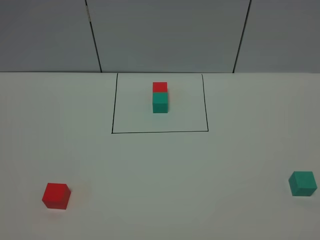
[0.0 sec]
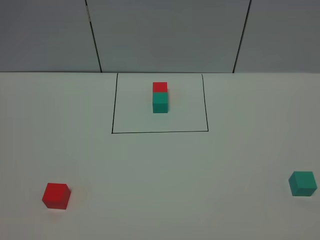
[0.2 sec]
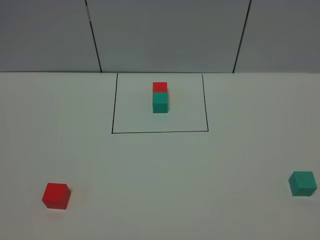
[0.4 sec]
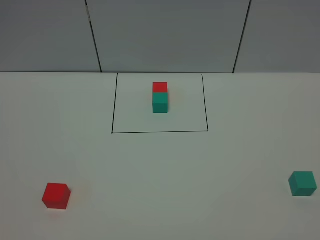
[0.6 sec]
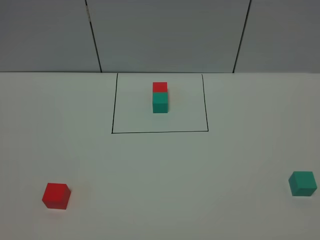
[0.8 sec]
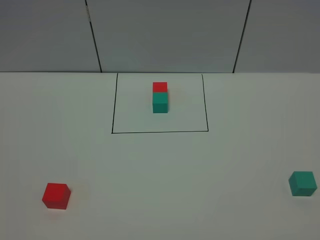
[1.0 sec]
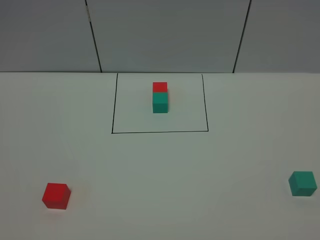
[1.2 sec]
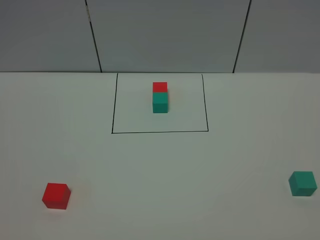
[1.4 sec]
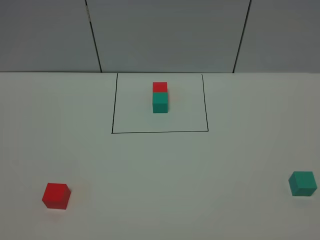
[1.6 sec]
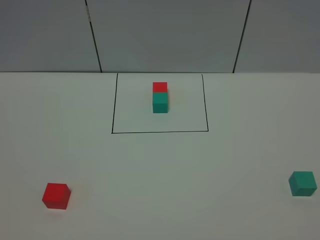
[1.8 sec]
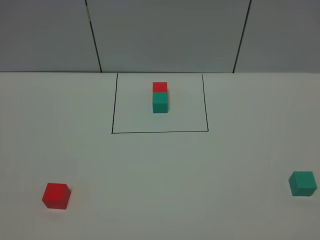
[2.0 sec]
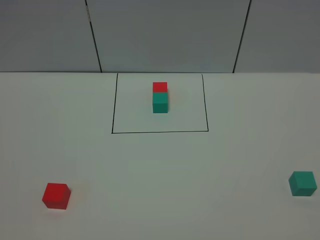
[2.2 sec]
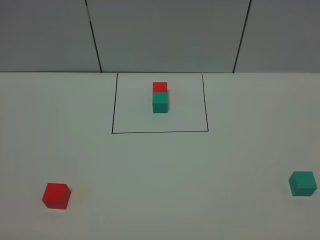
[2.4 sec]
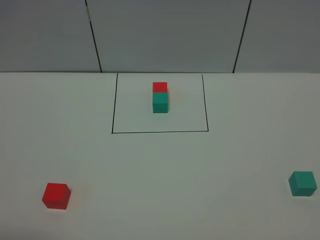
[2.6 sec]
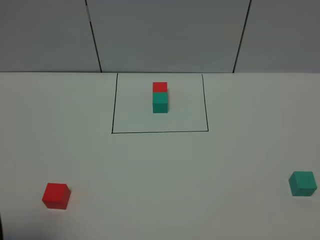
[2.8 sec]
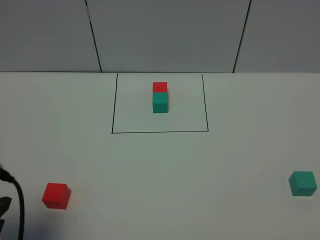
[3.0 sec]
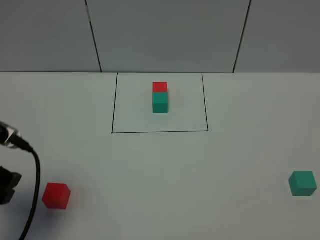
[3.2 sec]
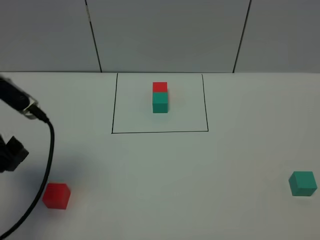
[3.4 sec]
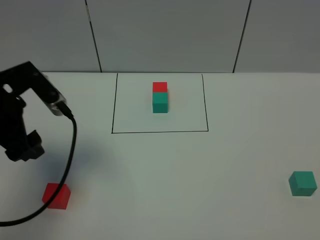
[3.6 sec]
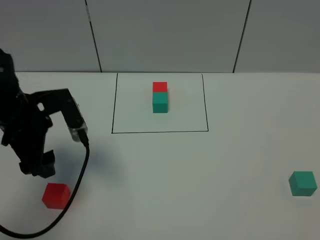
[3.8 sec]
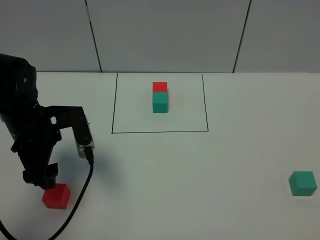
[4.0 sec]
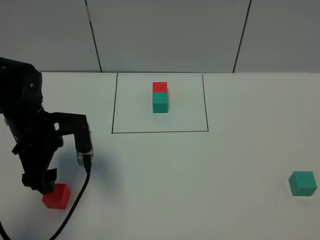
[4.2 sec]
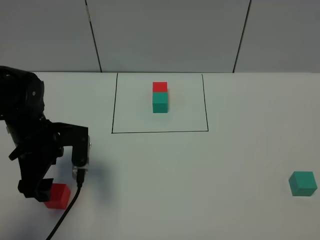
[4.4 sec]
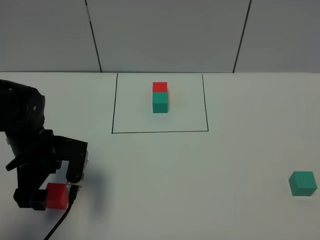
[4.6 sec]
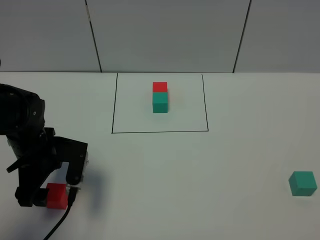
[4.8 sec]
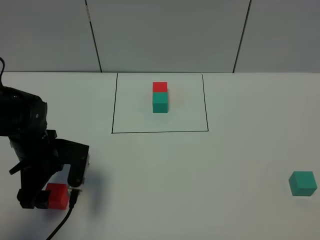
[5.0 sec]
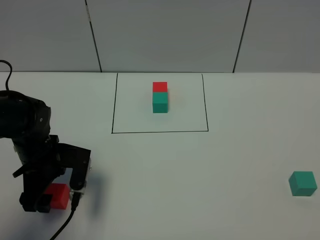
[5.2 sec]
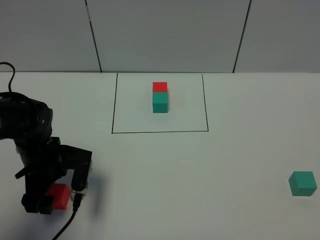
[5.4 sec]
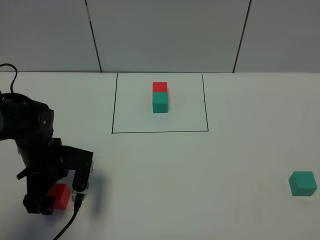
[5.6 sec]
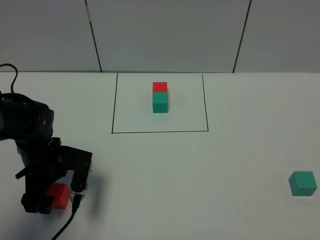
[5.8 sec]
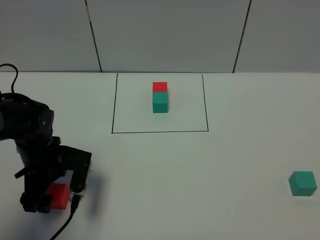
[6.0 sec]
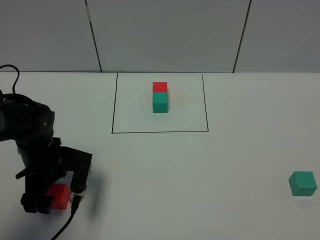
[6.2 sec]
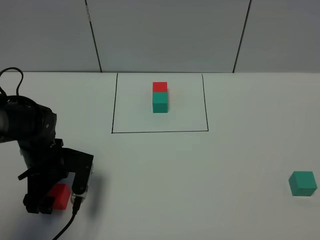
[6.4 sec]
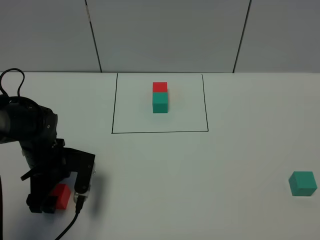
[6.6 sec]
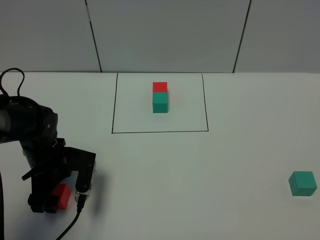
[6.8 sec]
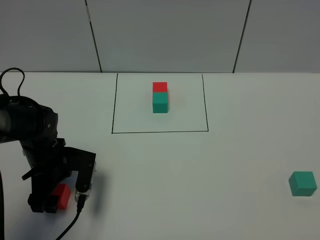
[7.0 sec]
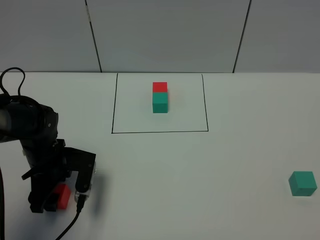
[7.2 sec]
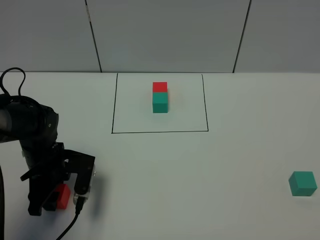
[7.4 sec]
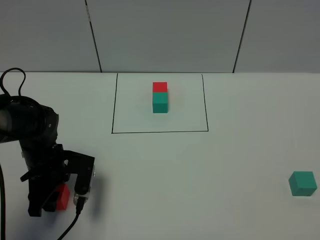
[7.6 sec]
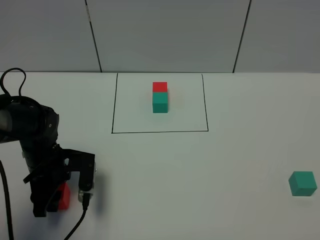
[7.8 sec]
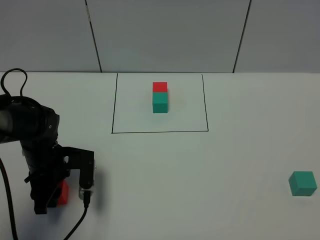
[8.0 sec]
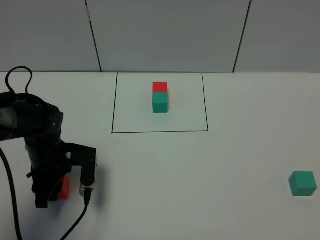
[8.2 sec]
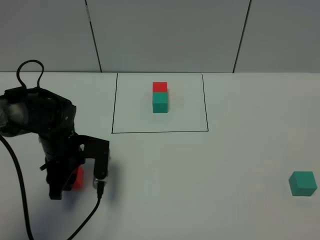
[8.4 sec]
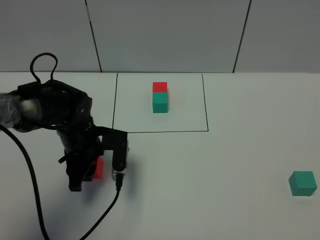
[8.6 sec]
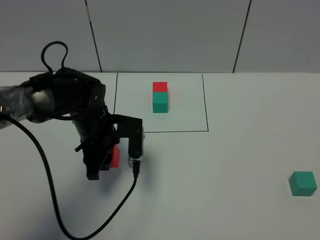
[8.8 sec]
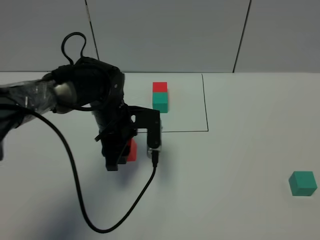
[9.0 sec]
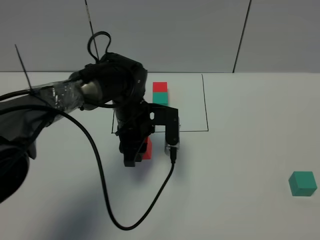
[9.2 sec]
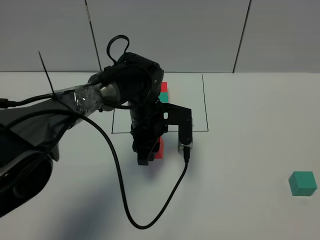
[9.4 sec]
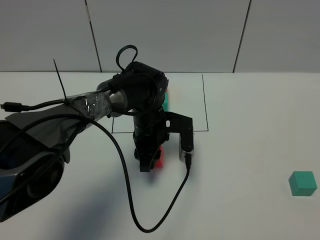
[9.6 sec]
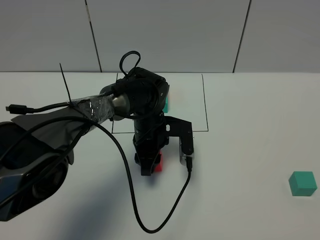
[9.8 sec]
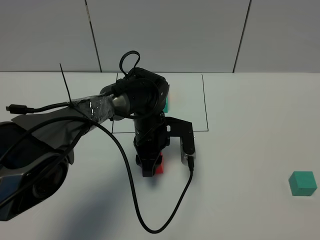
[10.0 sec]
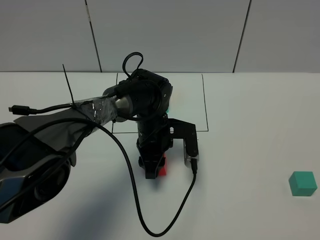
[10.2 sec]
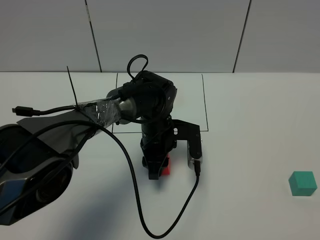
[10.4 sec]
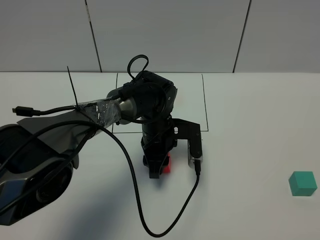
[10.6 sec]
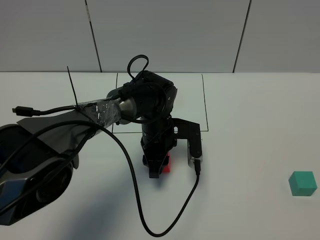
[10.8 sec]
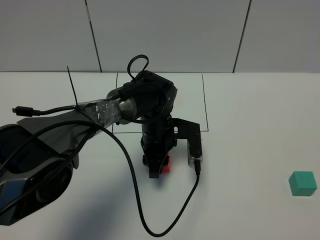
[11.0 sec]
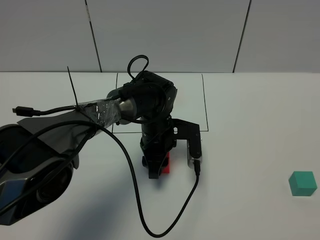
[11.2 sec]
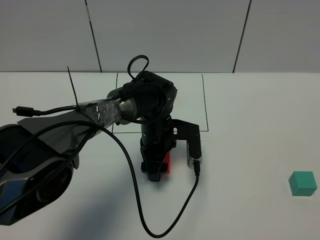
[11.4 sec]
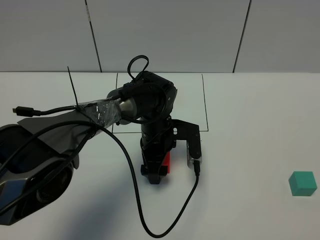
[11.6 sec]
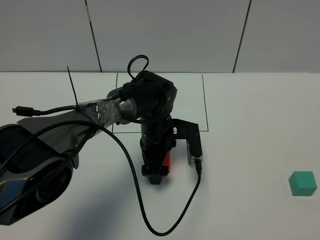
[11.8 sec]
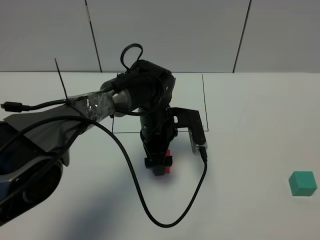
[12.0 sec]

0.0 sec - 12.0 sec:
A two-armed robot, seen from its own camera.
Task of the whole recording: According to the building block template in front, assemble the scattered blocks together.
Step, 2.8 sec - 12.0 sec: Put the red cube in the center of the table.
0.0 sec - 1.6 sec: Neither gripper changes place.
1.6 sec - 3.0 sec: The left gripper is displaced forward by approximately 15 cm.
3.0 sec - 4.4 sec: The left gripper goes about 20 cm forward and downward.
4.4 sec - 6.0 sec: The left gripper heads downward, covering some 5 cm.
6.0 sec - 7.6 sec: The left gripper closes up.
7.6 sec - 9.0 sec: The left gripper moves to the right and forward, approximately 15 cm.
9.0 sec - 10.4 sec: The left gripper heads to the right, covering some 5 cm.
10.4 sec - 12.0 sec: The left gripper opens.

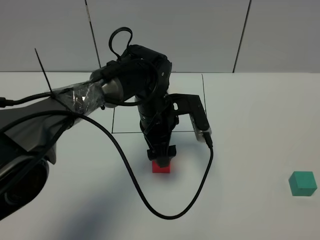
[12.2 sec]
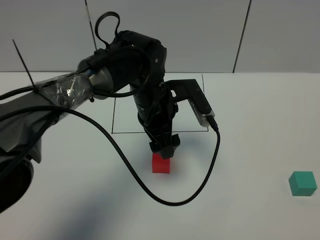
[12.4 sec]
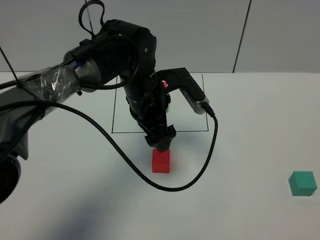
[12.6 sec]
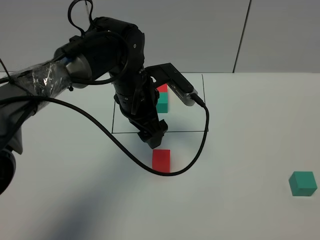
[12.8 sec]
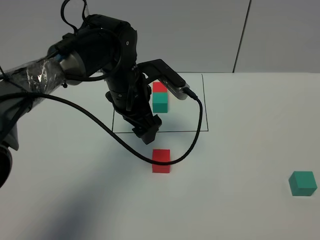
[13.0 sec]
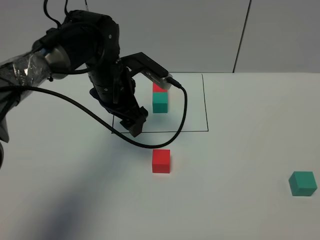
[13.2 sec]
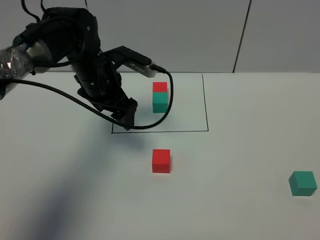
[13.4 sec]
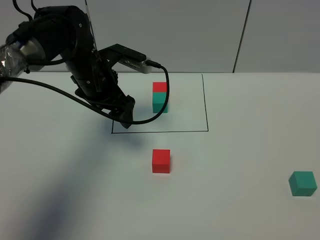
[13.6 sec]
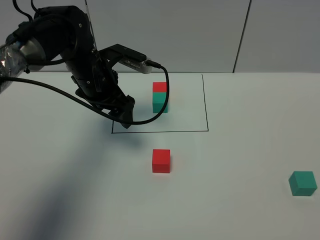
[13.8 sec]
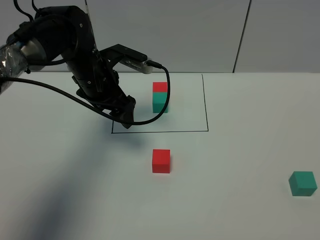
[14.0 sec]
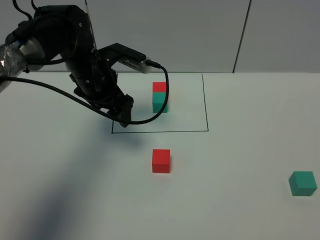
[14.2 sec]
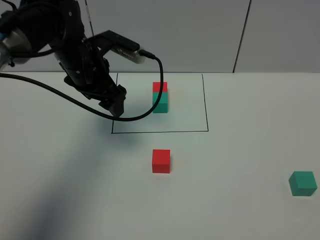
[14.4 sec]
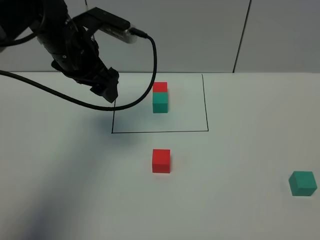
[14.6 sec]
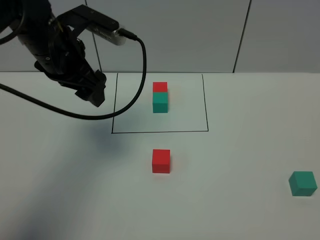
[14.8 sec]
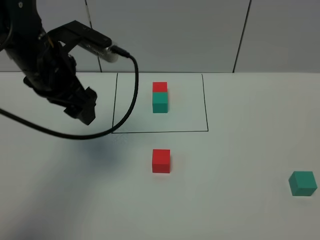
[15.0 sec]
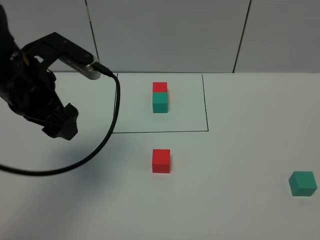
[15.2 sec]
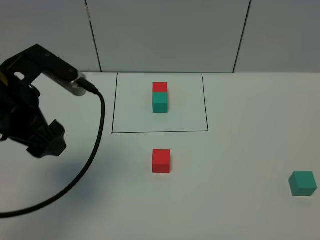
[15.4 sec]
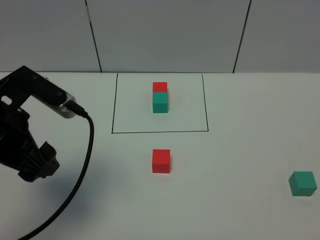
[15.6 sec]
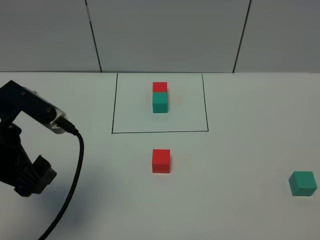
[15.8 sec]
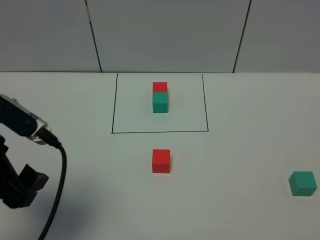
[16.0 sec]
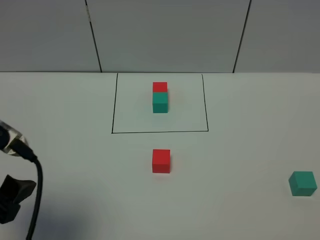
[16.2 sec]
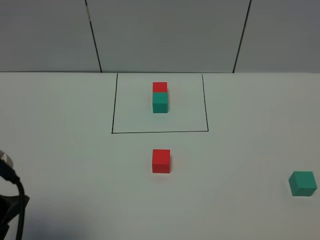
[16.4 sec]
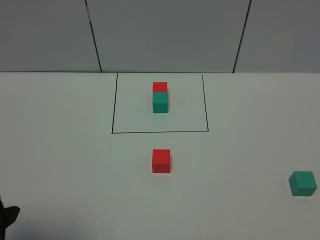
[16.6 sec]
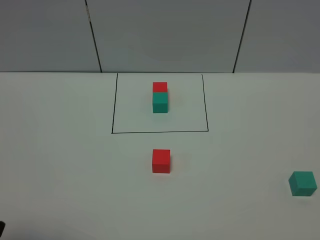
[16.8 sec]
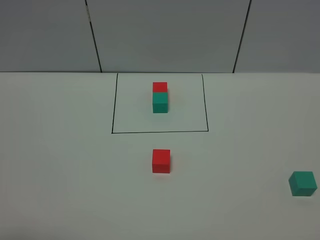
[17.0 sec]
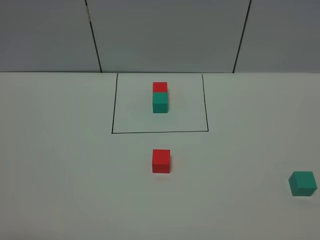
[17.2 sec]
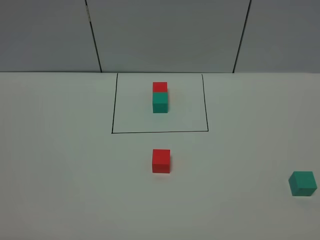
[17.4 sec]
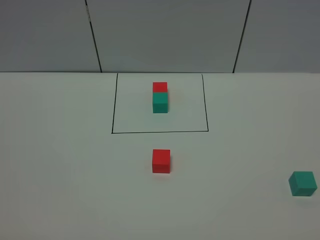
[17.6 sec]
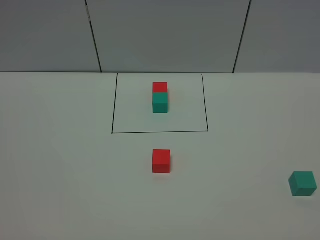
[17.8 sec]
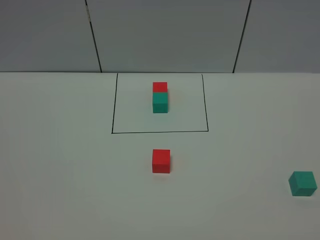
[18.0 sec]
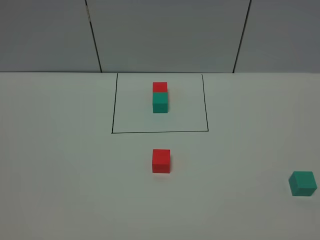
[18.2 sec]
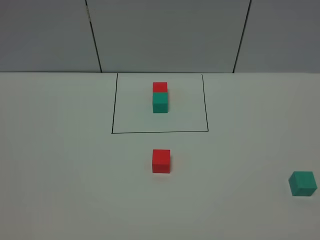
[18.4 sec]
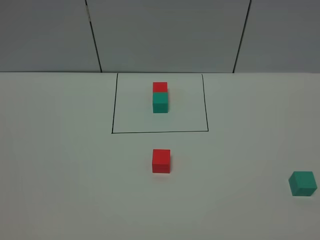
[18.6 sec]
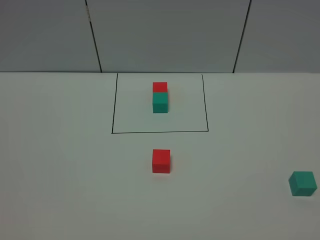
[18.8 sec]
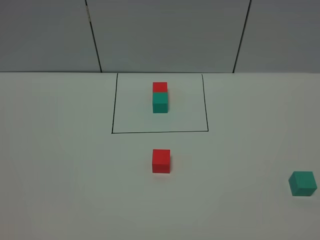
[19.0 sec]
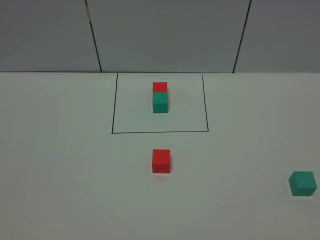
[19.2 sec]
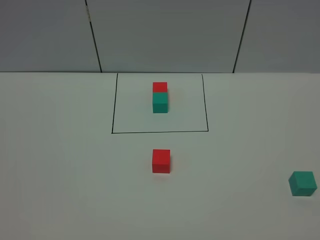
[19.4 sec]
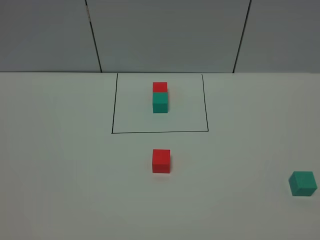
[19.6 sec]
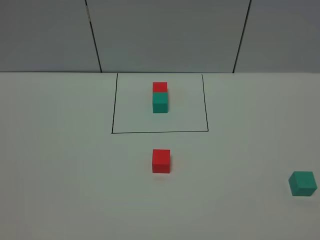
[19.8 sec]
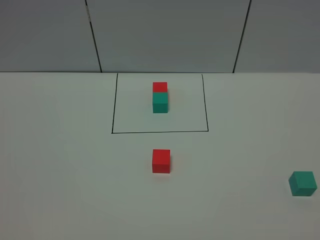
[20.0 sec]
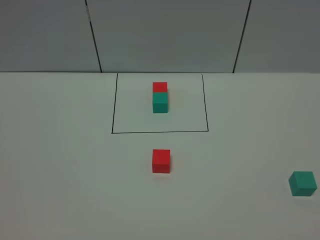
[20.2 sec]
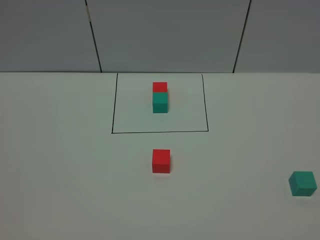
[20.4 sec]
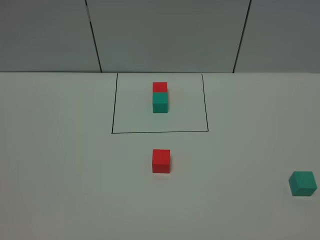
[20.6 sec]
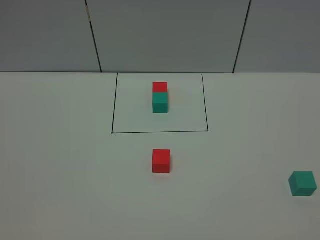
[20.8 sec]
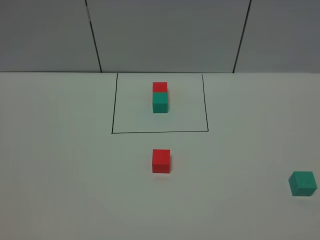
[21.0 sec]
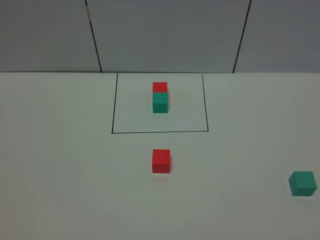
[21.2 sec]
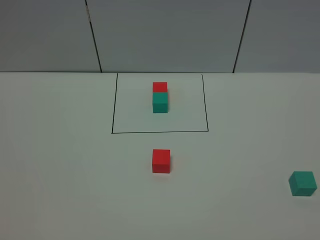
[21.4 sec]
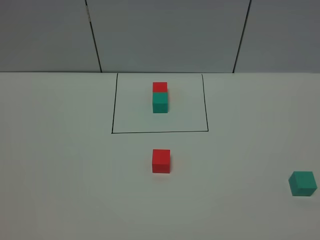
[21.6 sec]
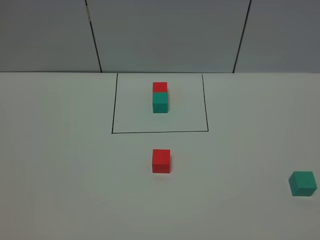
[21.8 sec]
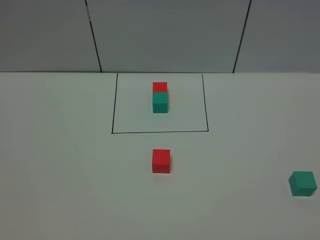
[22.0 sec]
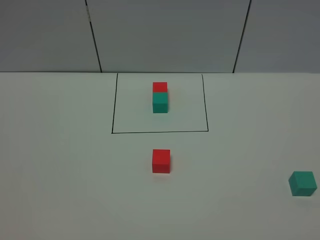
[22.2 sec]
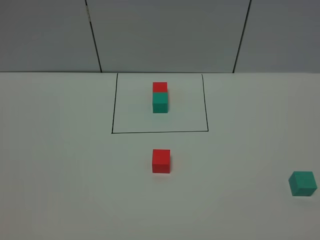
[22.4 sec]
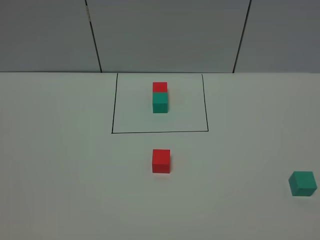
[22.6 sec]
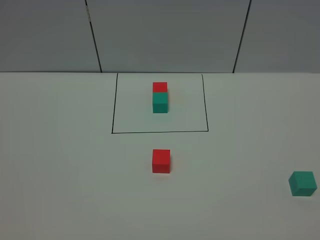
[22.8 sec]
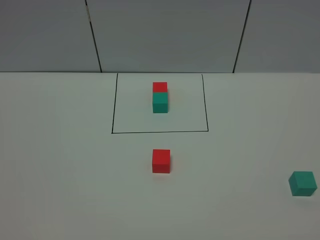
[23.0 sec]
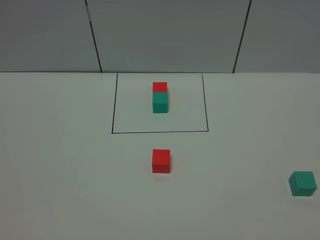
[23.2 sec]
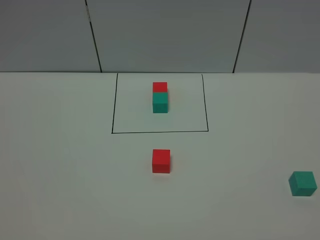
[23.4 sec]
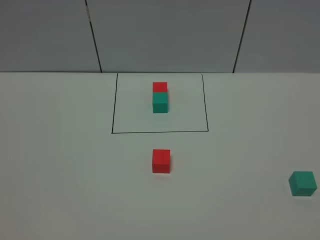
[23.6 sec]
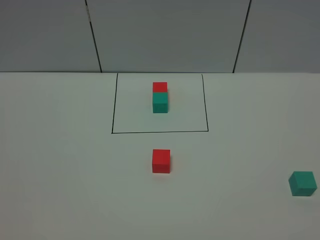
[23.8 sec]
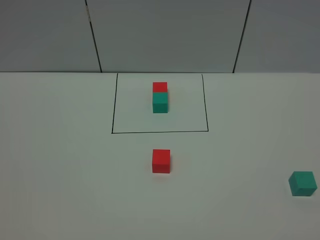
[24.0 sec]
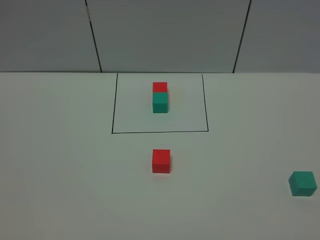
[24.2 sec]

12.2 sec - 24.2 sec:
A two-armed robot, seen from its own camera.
Task of the whole recording: According to the building block template in front, assemble the scattered blocks together.
12.2 sec - 13.8 sec: The left gripper heads to the left, covering about 10 cm.
13.8 sec - 15.2 sec: The left gripper heads backward, upward and to the left, covering roughly 15 cm.
15.2 sec - 16.6 sec: The left gripper shifts roughly 20 cm backward.
16.6 sec - 18.2 sec: The left gripper goes roughly 10 cm backward.
21.2 sec - 24.2 sec: Both grippers stay about where they are.
